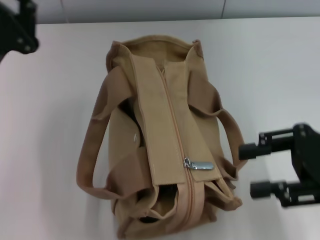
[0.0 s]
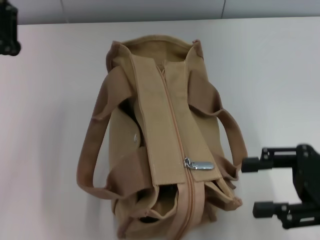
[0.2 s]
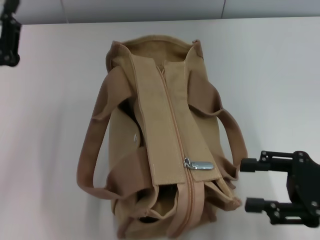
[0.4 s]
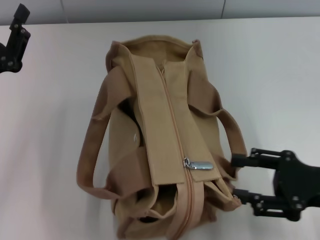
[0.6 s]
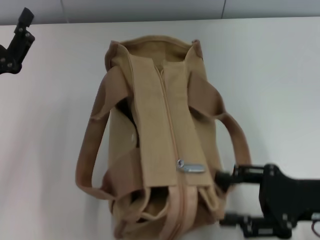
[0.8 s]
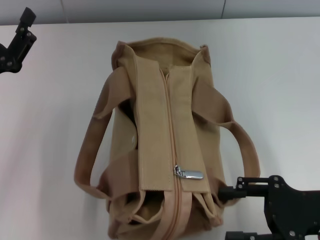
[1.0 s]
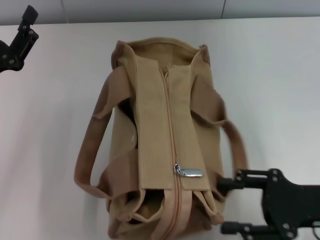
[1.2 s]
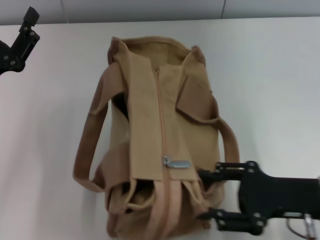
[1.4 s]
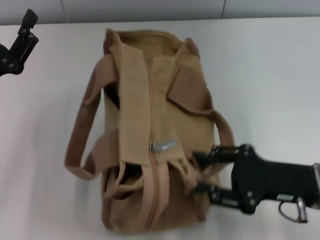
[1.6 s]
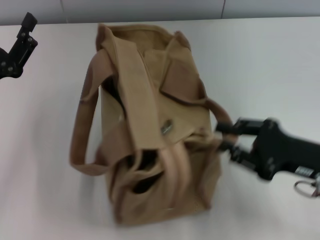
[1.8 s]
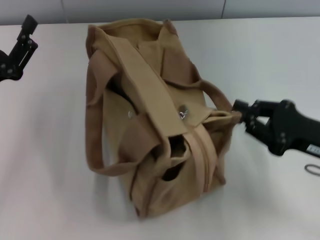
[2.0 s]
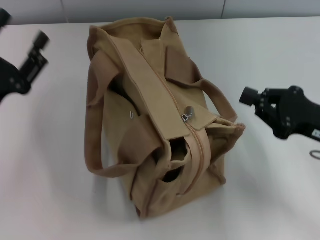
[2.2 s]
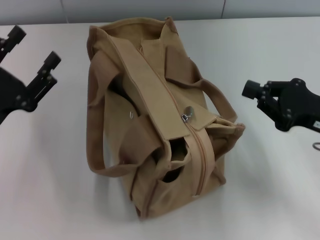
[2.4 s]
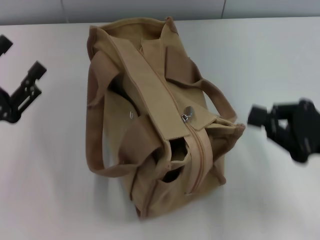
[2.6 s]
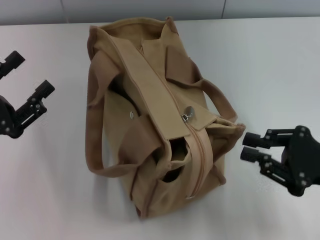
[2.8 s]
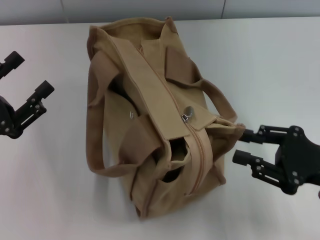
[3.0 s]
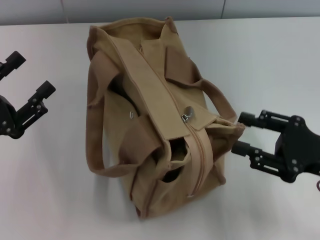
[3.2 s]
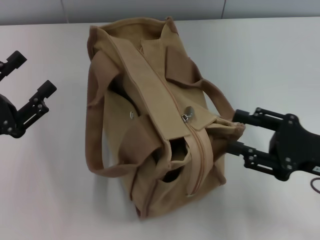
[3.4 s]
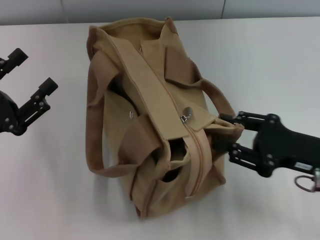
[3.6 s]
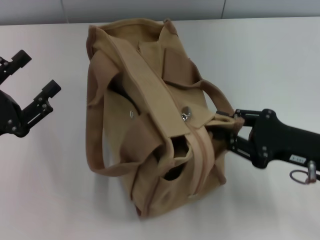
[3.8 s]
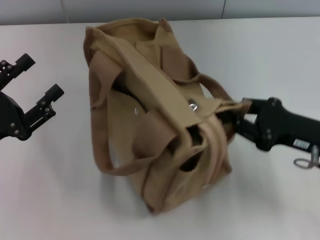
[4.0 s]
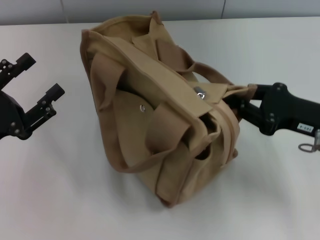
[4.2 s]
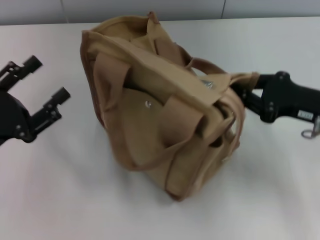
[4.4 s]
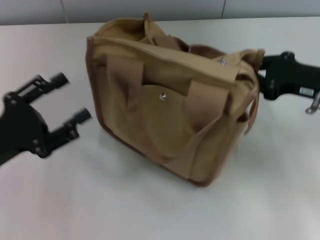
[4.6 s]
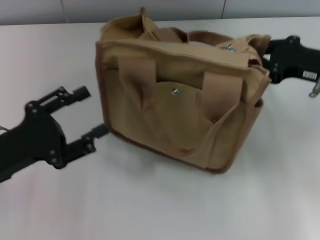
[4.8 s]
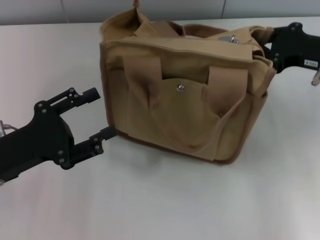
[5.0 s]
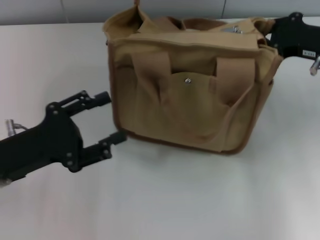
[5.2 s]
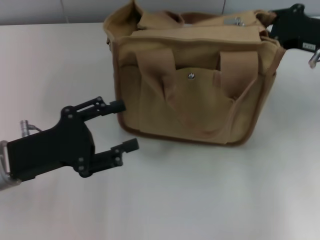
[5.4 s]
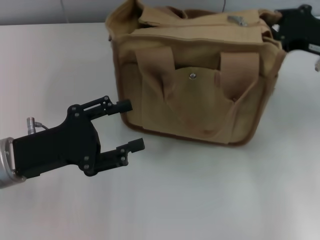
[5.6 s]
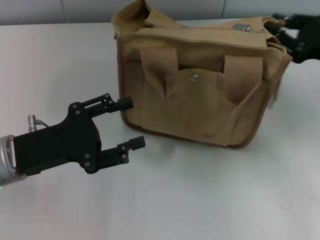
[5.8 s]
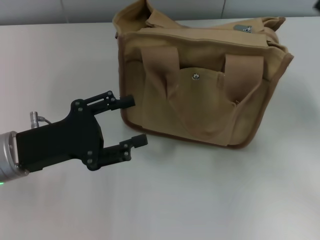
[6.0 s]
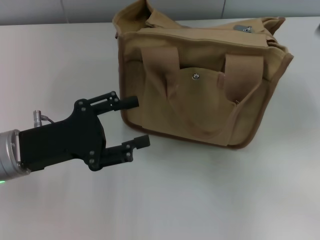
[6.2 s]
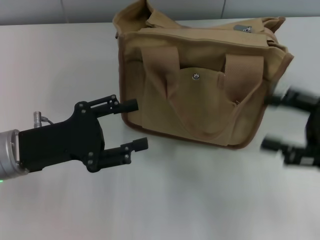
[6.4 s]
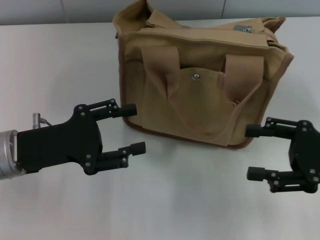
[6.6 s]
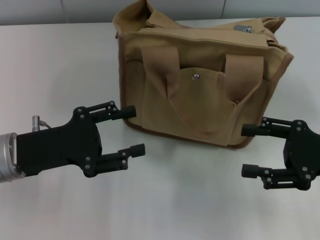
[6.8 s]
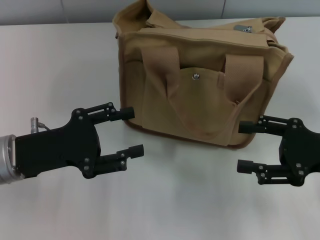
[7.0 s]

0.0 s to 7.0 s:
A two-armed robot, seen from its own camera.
0.0 to 1.4 s: The right gripper shifts approximately 10 cm downward, and opens; the left gripper opens up.
1.4 to 2.8 s: The right gripper is displaced to the right by roughly 5 cm, and closes. Meanwhile the left gripper ends up roughly 5 cm from where it was.
2.8 to 4.2 s: The right gripper shifts approximately 5 cm forward, and opens, then closes again.
4.2 to 5.6 s: The left gripper moves to the right, about 5 cm. Meanwhile the right gripper heads forward and upward, covering some 10 cm.
5.6 to 7.0 s: The right gripper moves backward, about 10 cm, and opens.
